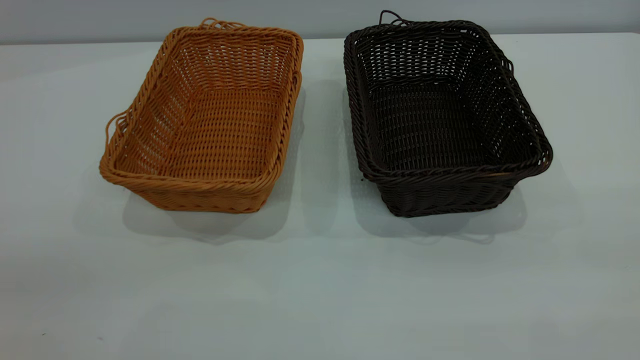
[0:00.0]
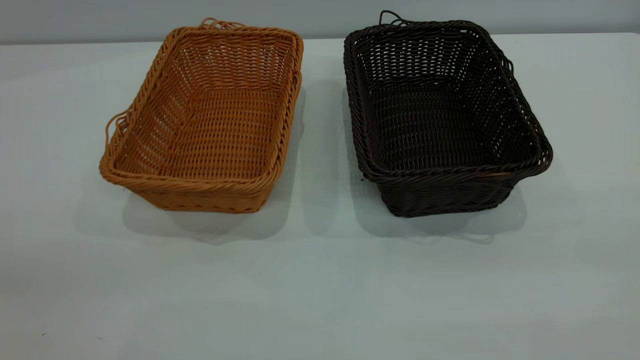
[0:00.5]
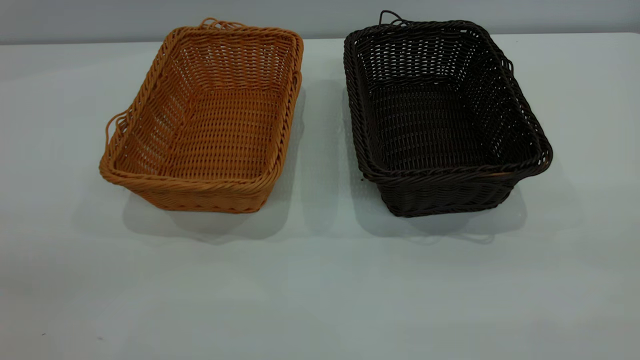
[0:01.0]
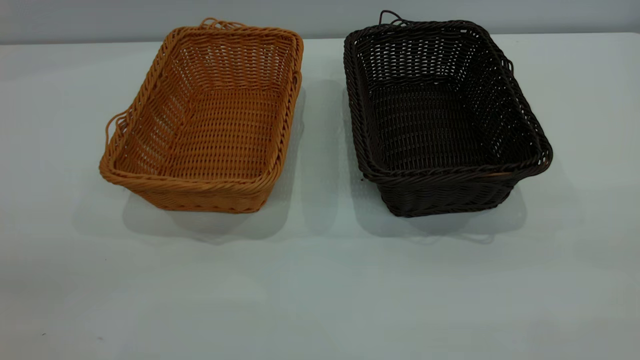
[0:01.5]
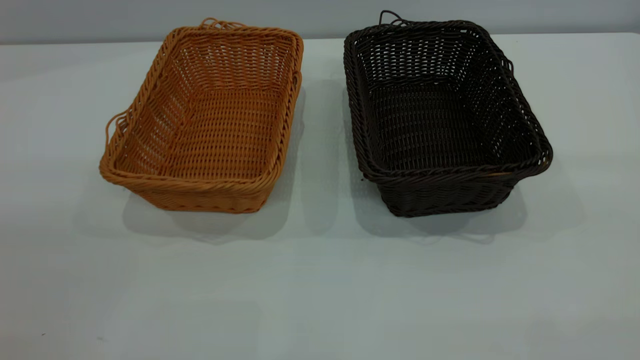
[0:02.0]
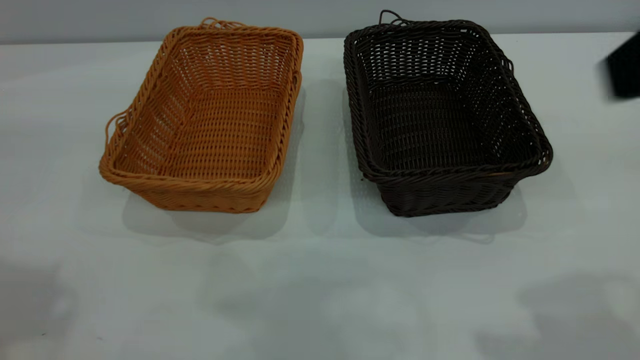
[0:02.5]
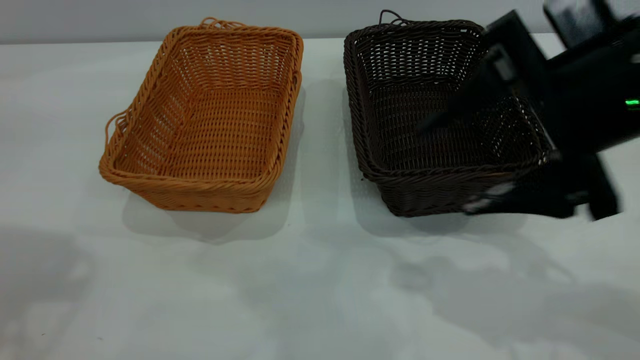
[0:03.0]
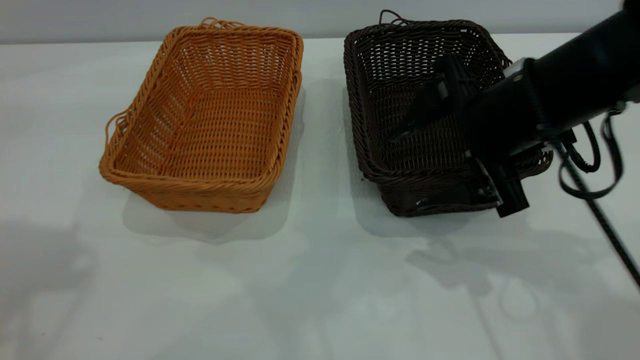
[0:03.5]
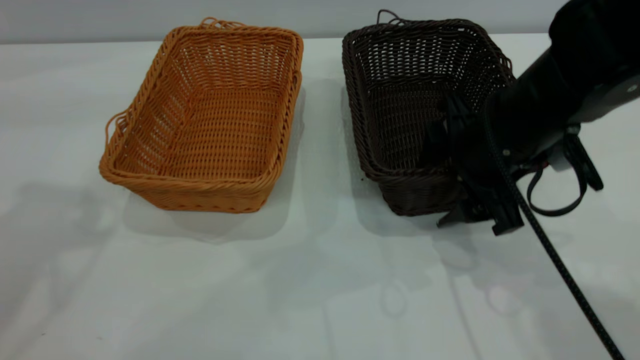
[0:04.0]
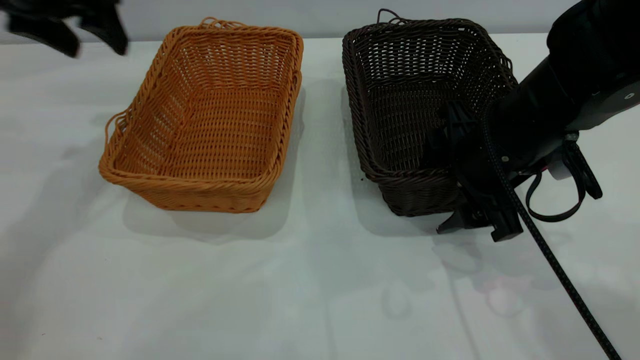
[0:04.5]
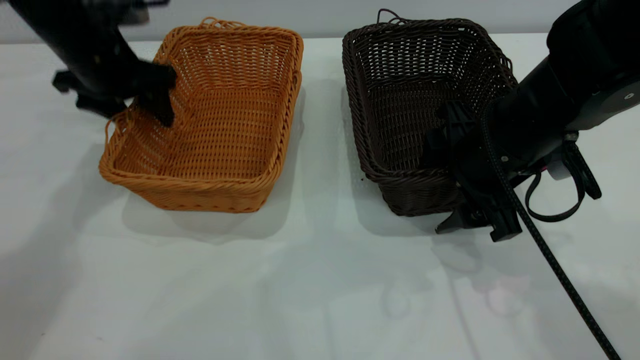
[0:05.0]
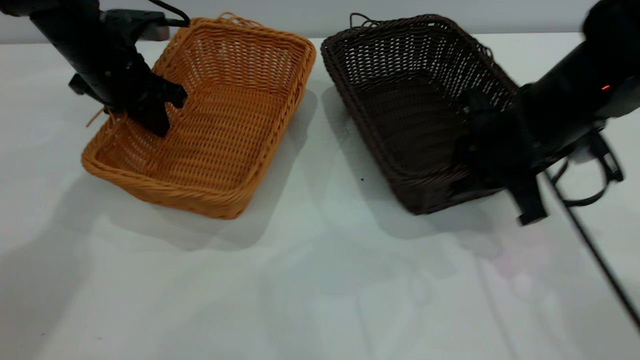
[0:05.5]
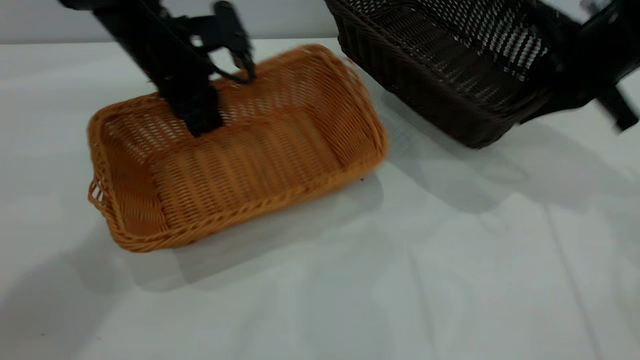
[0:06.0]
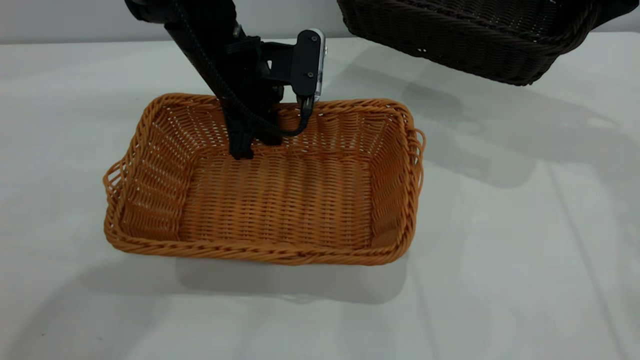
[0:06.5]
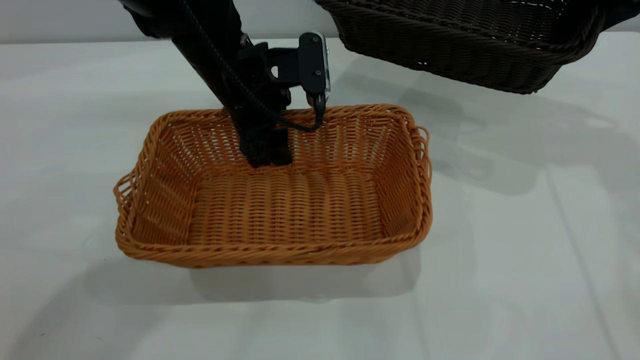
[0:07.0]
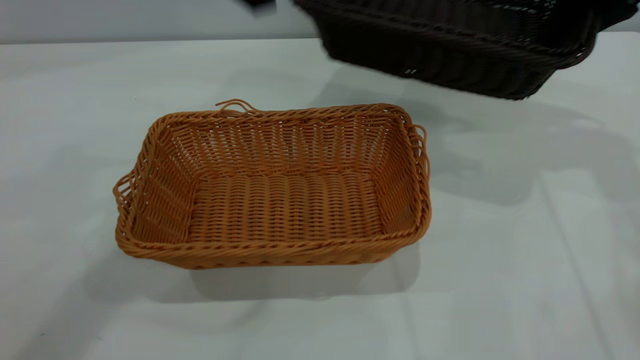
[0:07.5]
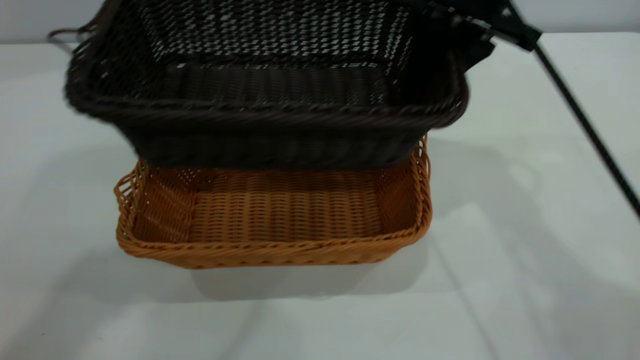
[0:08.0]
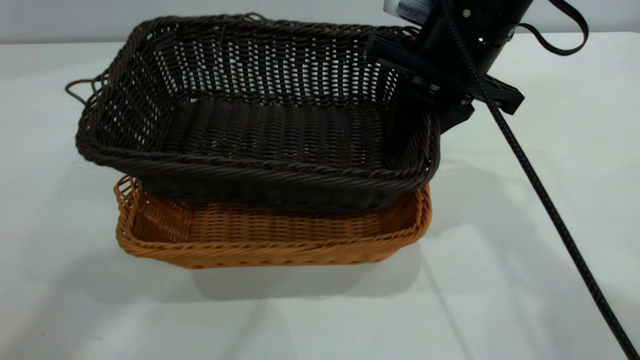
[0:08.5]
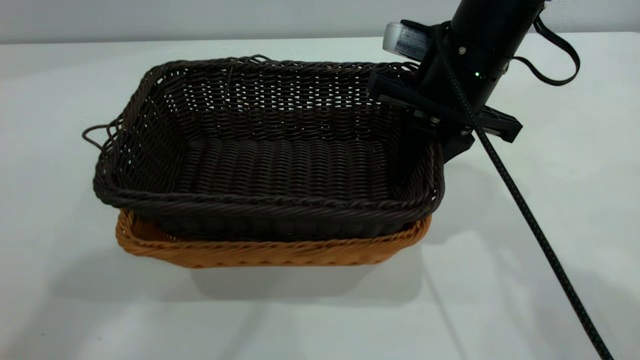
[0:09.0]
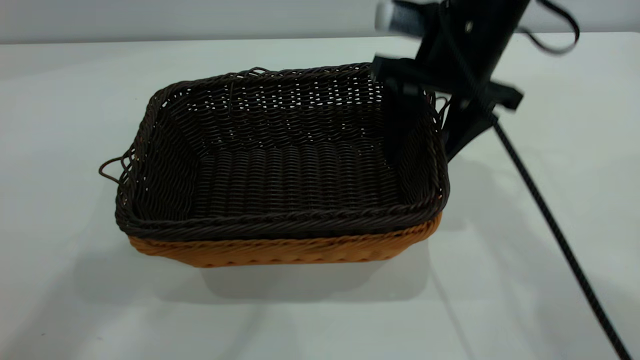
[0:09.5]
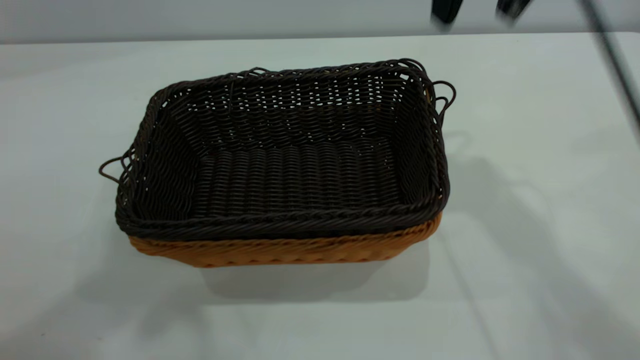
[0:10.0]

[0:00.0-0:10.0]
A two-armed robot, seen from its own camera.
Task of the whole recording: the left gripper grasp the brown basket and place it in the center of the table, the right gripper grasp the black basket and place it inside the brown one.
Step, 0:00.0 to 0:05.5: Pick up the light basket with the right gripper.
Step, 0:06.0 to 0:07.0: Place the light-colored basket in the center.
Step, 0:07.5 to 0:09.5: Place the dark basket on top of the light basket.
0:02.0 to 0:04.0: The right gripper heads downward and forward, covering some 40 cm.
0:04.0 to 0:06.0: The right gripper is displaced to the right, forward and upward by approximately 15 cm, and closes up. The left gripper shifts some 30 cm downward, forward and to the right, and closes.
0:06.0 to 0:08.0: The right gripper moves to the left and upward, some 15 cm; the left gripper is displaced upward and backward by roughly 40 cm, and opens.
0:08.0 to 0:10.0: The left gripper moves backward, upward and to the left, approximately 10 cm, while the right gripper heads upward, covering roughly 10 cm, and opens up.
